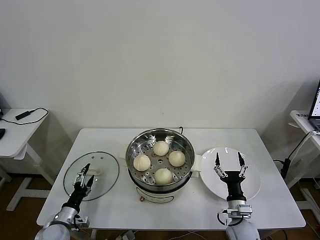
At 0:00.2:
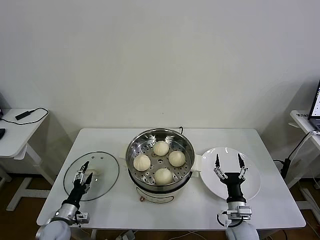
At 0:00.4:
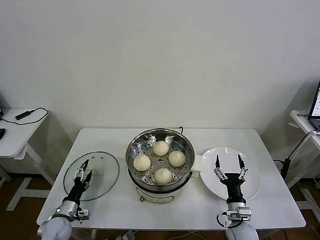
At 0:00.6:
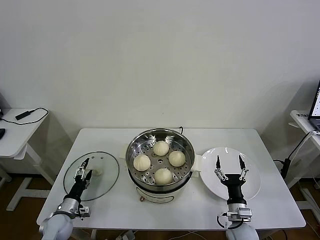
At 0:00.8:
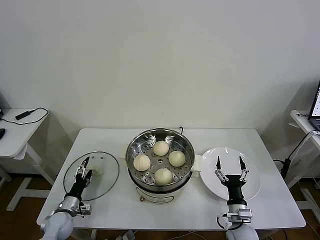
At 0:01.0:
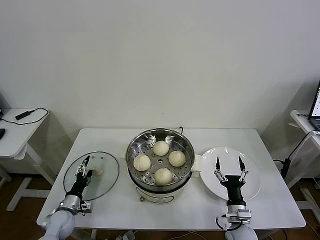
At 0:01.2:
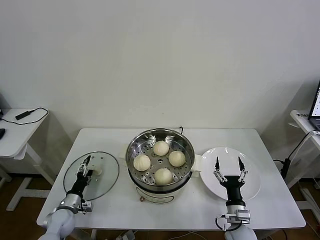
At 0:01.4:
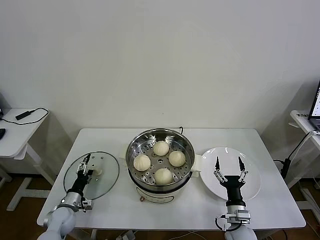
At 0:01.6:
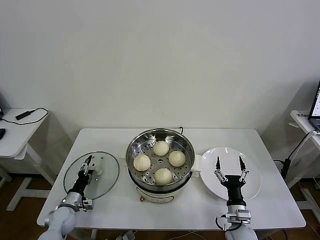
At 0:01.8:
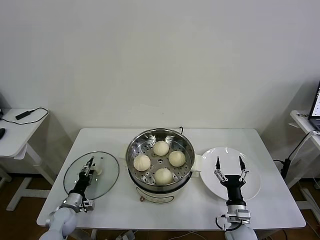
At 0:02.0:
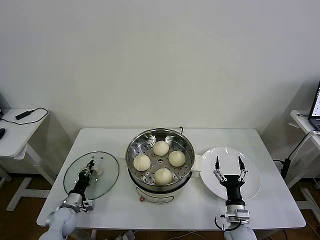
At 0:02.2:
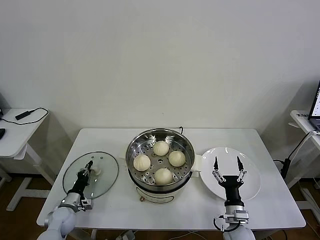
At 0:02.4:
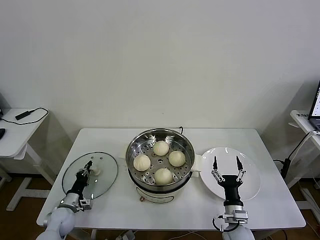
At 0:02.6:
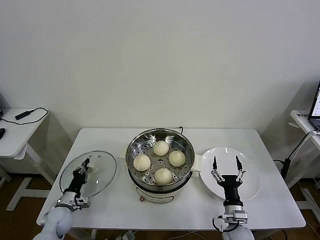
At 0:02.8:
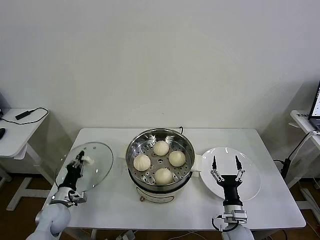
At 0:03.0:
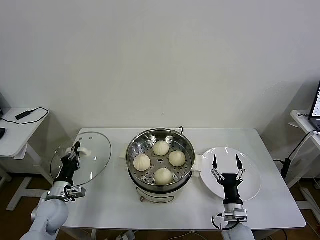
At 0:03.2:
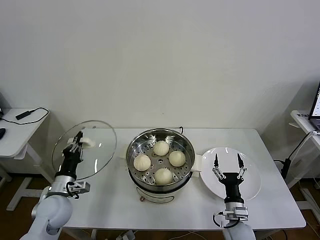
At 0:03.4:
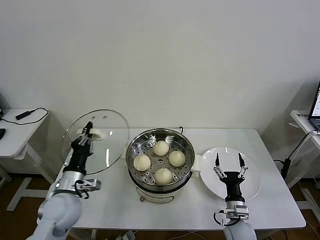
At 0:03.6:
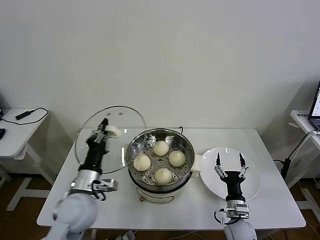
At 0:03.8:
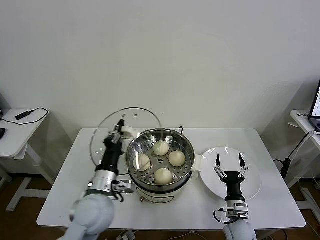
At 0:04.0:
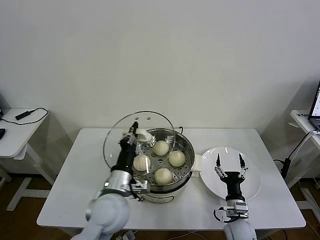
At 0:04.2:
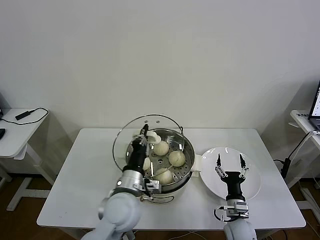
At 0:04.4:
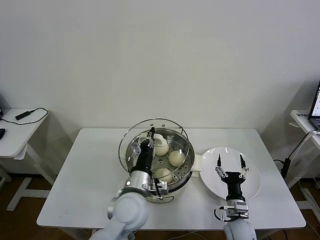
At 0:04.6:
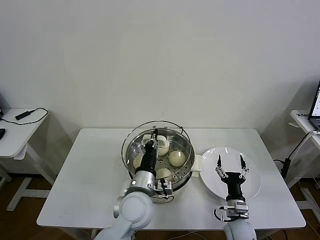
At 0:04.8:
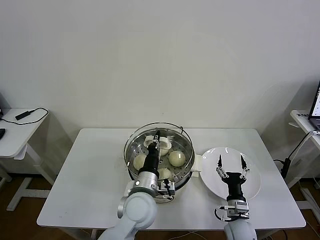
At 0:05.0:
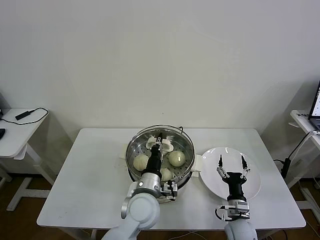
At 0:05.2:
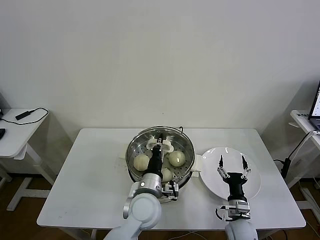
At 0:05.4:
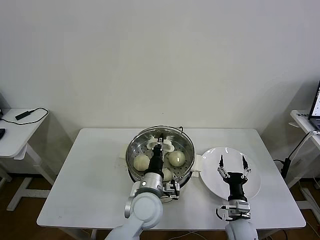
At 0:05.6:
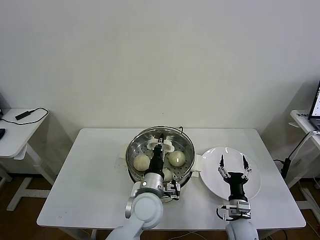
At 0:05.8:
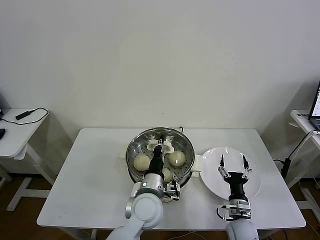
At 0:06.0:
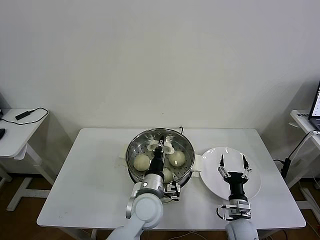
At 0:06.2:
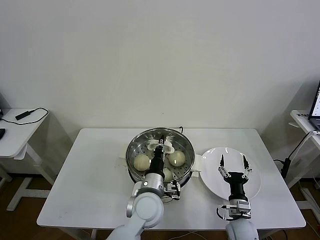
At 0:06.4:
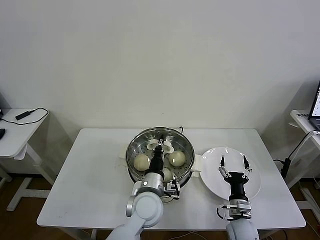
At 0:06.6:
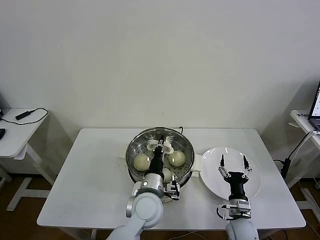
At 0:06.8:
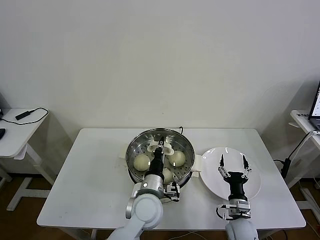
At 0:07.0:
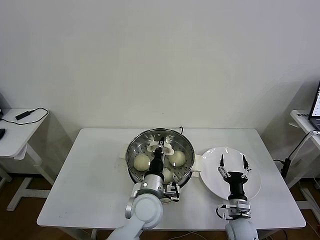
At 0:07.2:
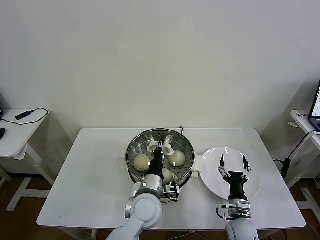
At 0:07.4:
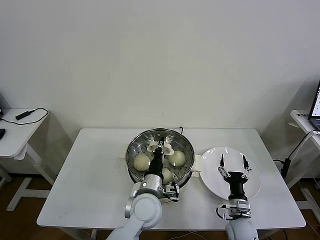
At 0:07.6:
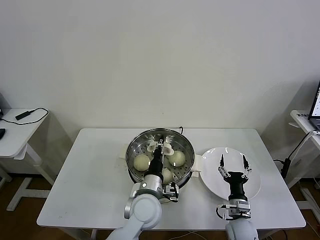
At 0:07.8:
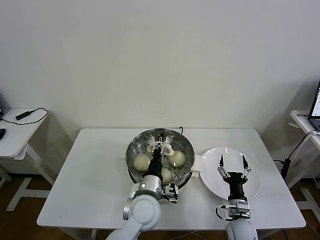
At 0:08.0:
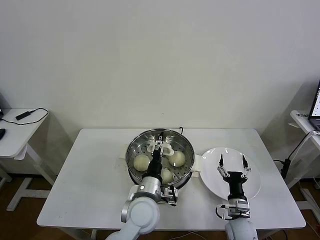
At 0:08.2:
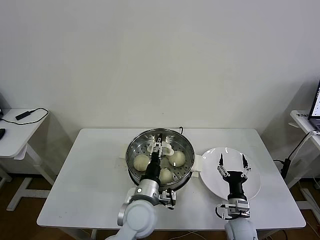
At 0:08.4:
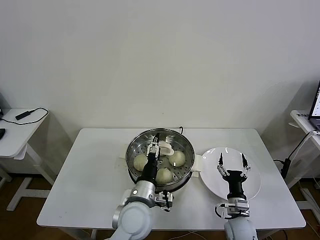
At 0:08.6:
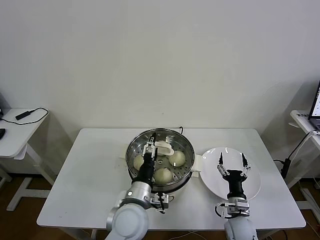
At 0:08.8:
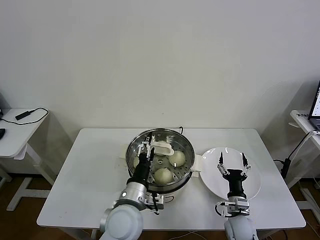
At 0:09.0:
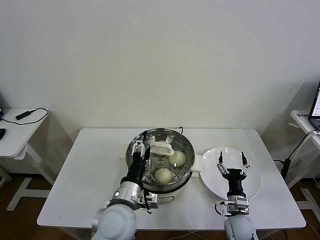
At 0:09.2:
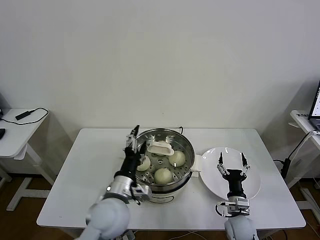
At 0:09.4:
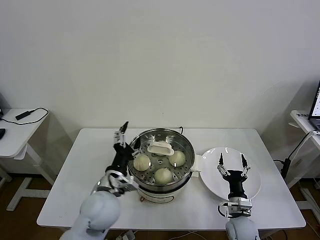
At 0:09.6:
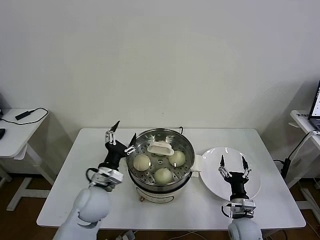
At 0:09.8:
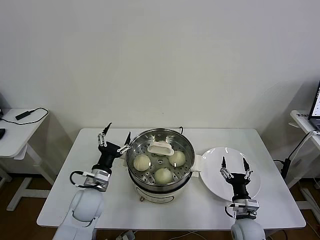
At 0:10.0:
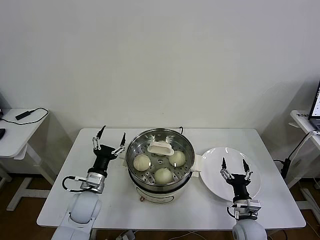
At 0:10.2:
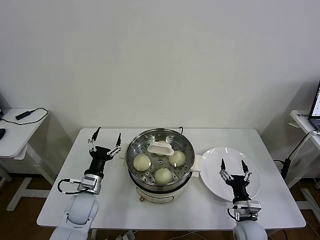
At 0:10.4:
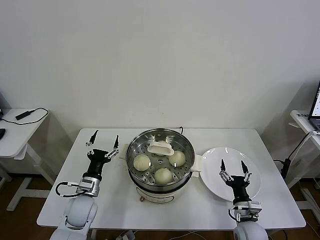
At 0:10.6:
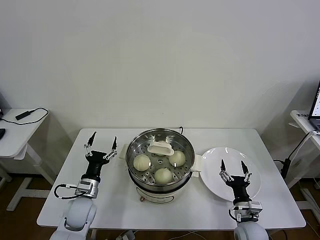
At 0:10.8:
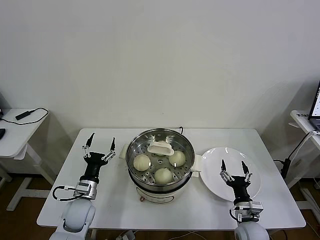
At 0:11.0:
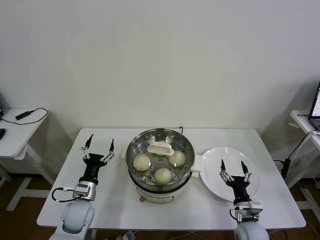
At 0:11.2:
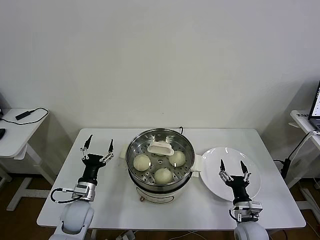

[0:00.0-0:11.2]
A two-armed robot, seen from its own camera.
Task of the whole recording: take steamed baozi put them in steamer then cover it.
Step, 0:00.0 to 0:02.4: Grasp the pot lid with left gripper.
Step, 0:02.6 to 0:07.8: Place the pot lid on the steamer with left gripper.
0:00.0 to 0:01.6: The left gripper goes about 5 cm forward.
0:01.6 to 0:03.2: The left gripper moves upward, some 15 cm, and closes its fingers.
0:03.2 to 0:04.8: The left gripper goes some 30 cm to the right.
0:04.8 to 0:06.4: There are only small adjustments of the grippers.
0:06.4 to 0:08.0: The left gripper opens its fingers.
0:08.0 to 0:09.6: The left gripper moves to the left, approximately 15 cm.
0:09.6 to 0:11.2: The left gripper shifts roughly 15 cm downward and to the left.
